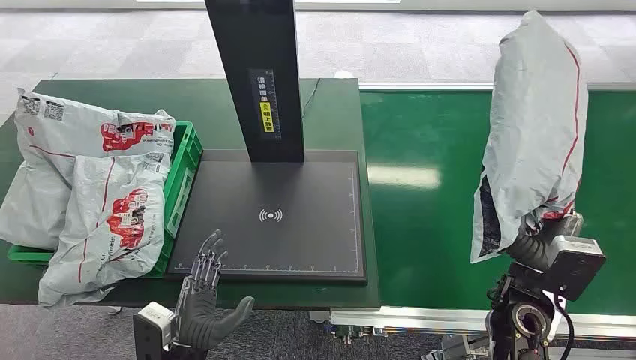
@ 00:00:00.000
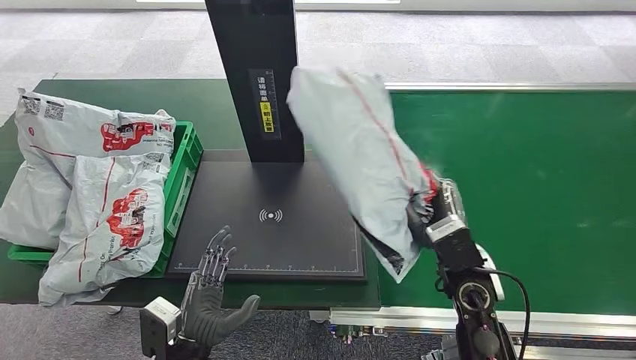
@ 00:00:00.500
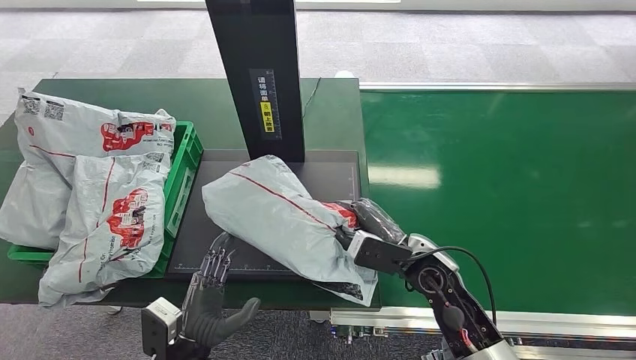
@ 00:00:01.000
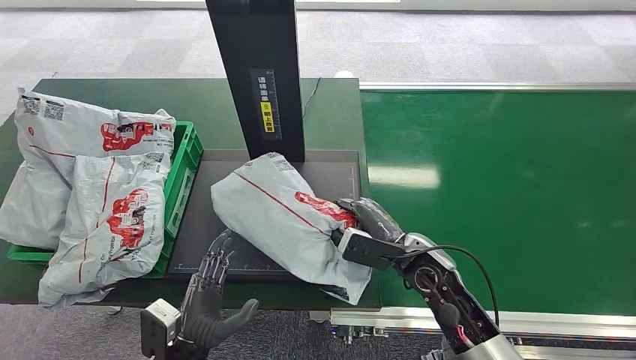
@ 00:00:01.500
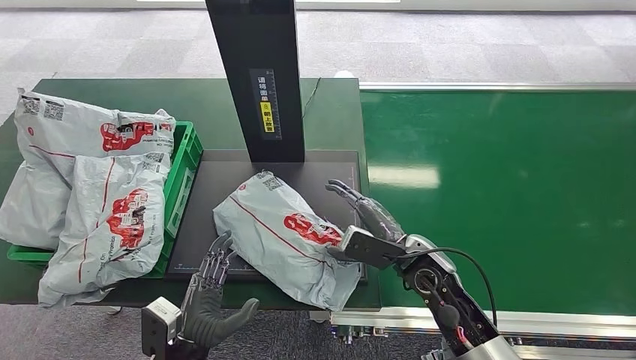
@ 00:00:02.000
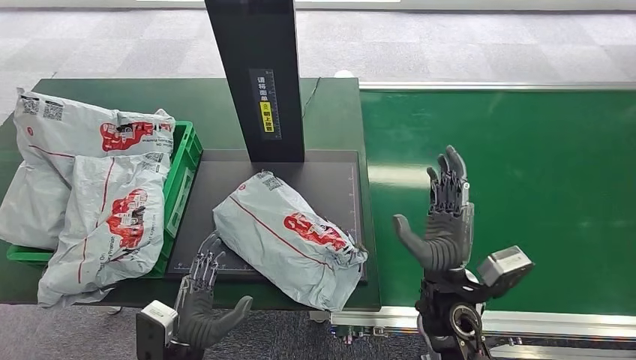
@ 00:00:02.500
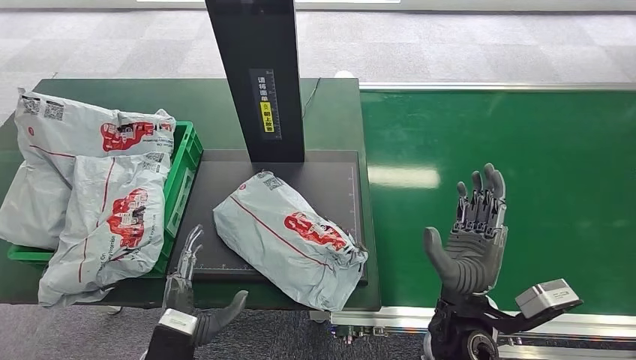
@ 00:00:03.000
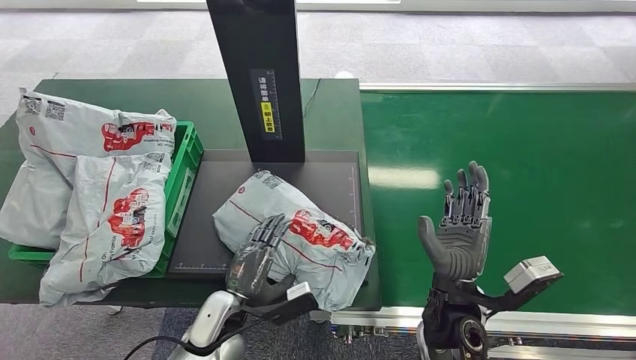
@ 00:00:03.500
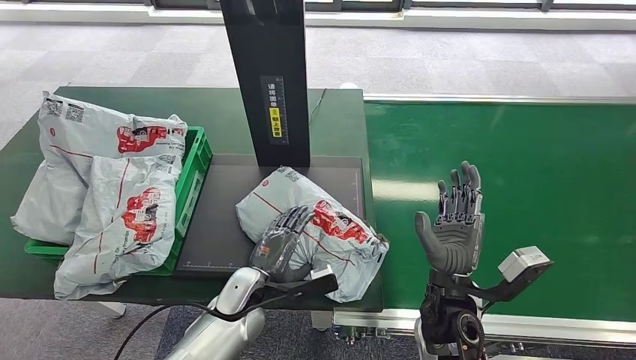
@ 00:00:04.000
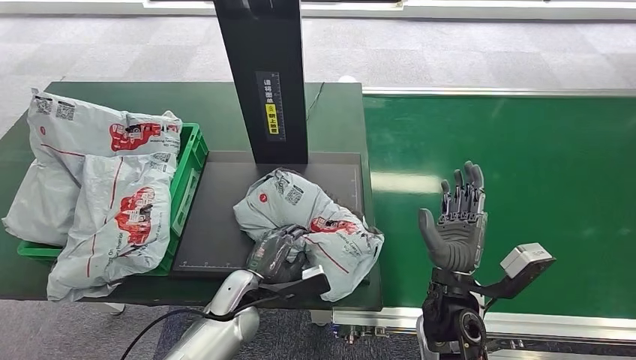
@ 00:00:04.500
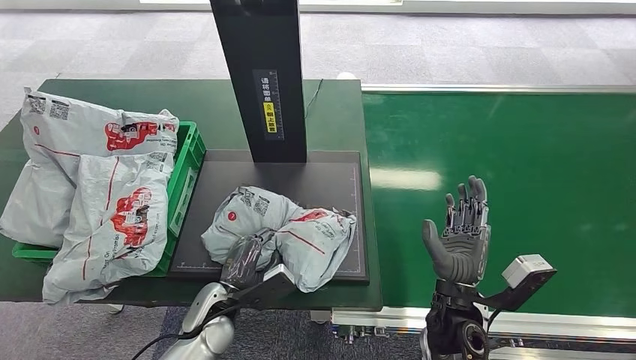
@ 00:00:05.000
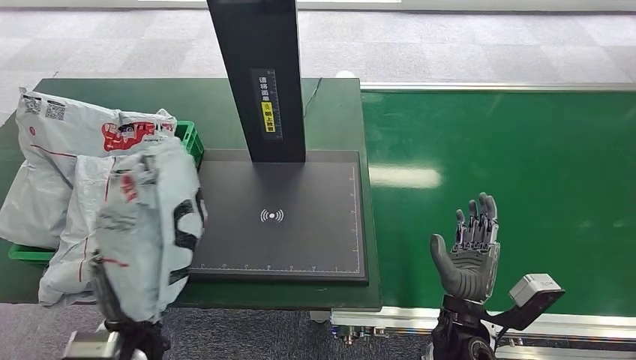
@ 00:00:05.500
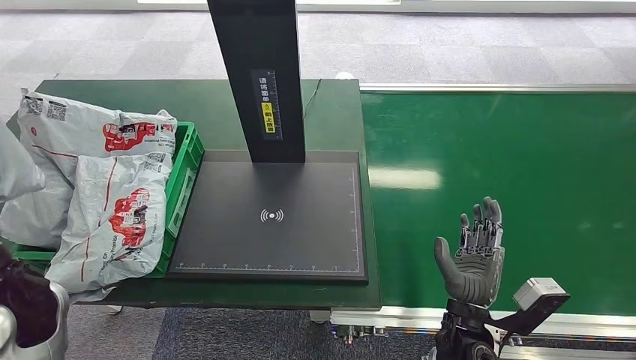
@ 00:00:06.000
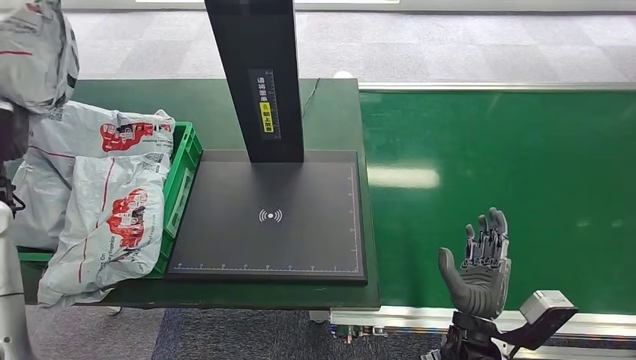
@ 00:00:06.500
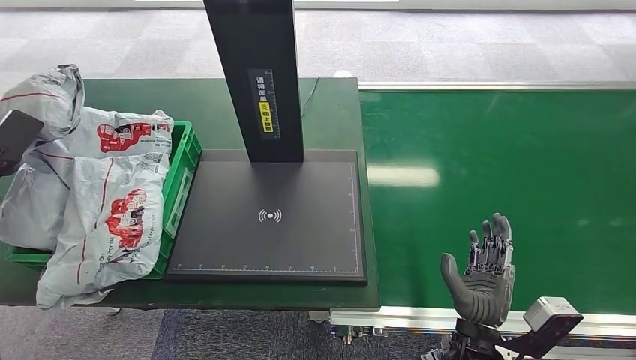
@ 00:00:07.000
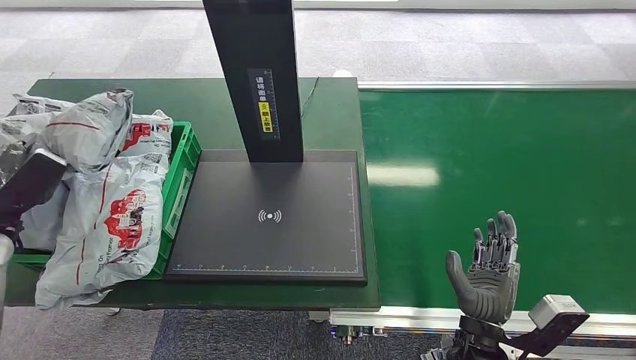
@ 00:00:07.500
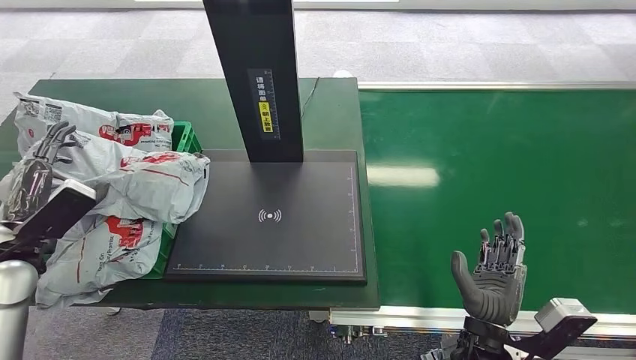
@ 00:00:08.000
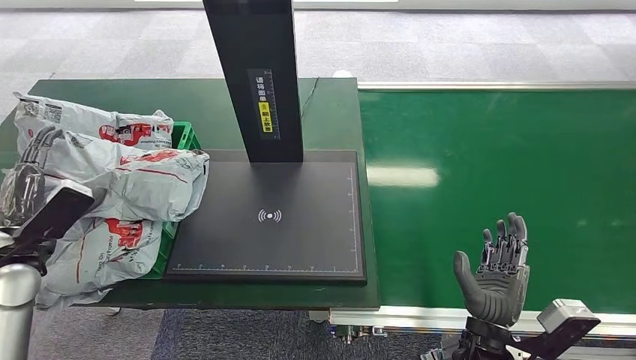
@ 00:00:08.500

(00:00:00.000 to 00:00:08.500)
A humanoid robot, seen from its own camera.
00:00:06.500 - 00:00:08.500: The left hand moves downward and backward, roughly 10 cm, and travels to the left and back again, roughly 10 cm each way.

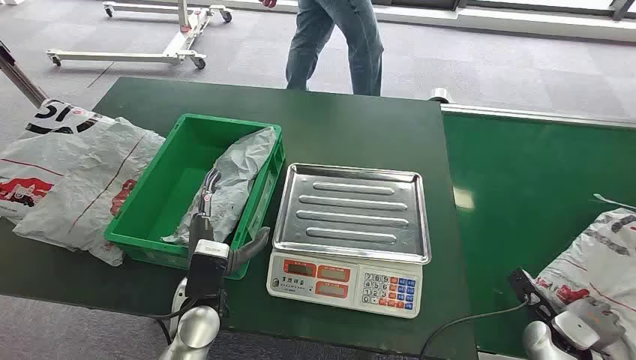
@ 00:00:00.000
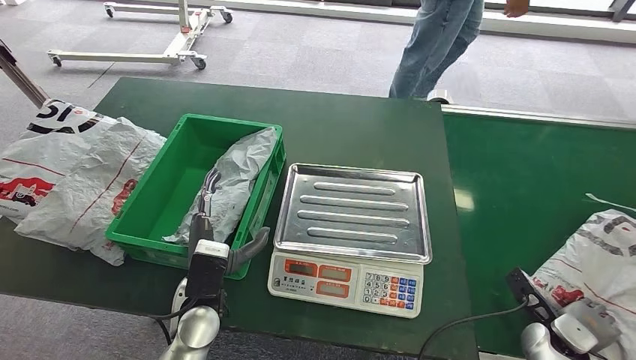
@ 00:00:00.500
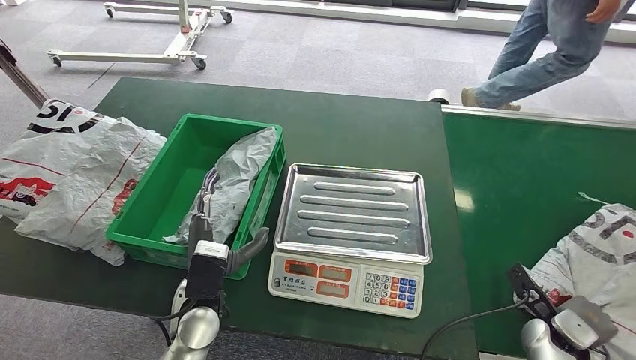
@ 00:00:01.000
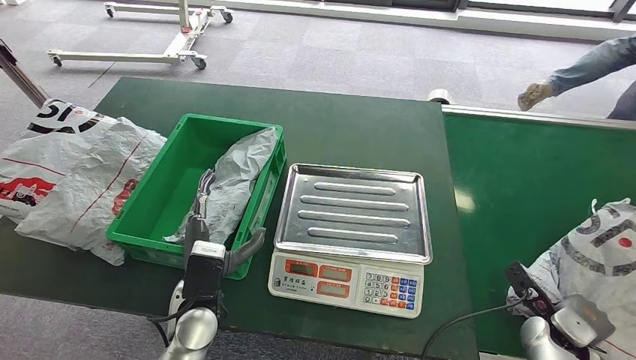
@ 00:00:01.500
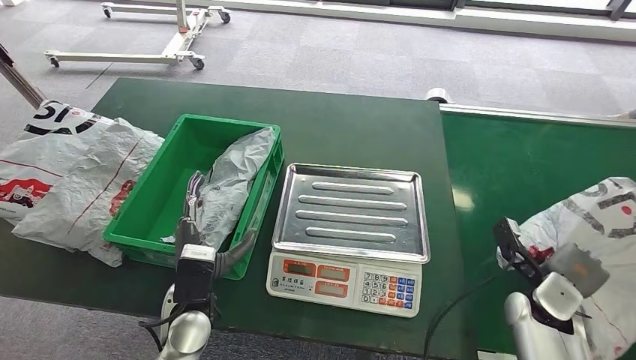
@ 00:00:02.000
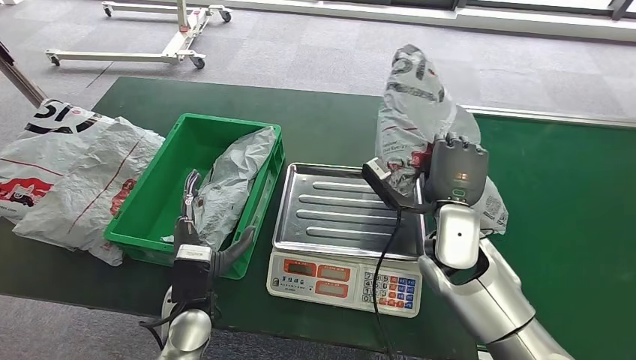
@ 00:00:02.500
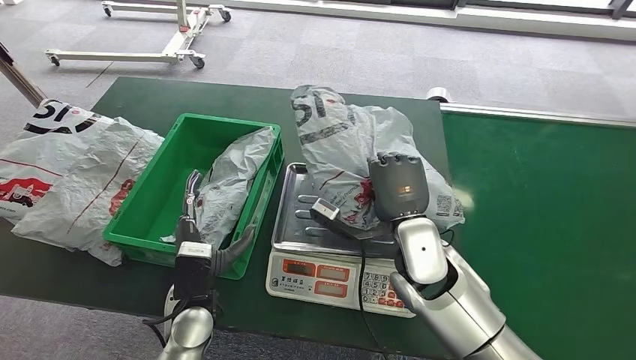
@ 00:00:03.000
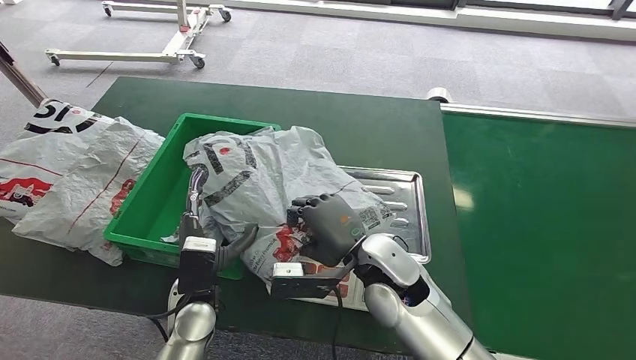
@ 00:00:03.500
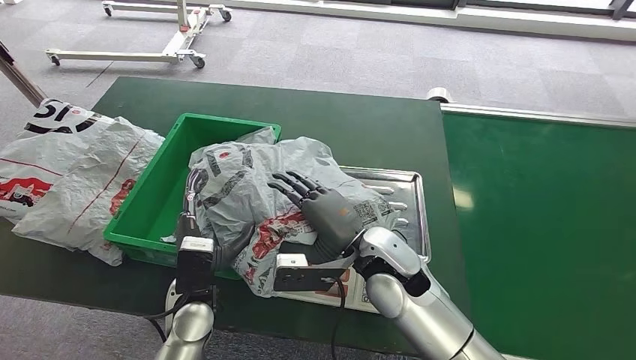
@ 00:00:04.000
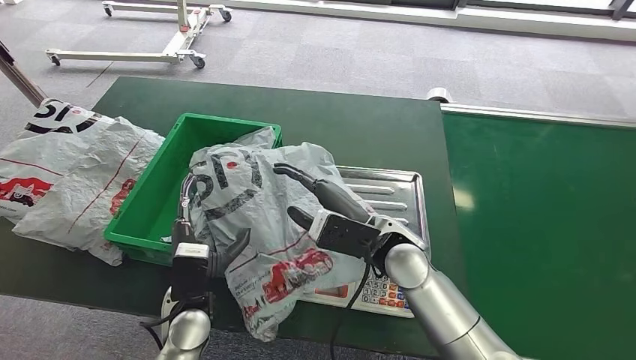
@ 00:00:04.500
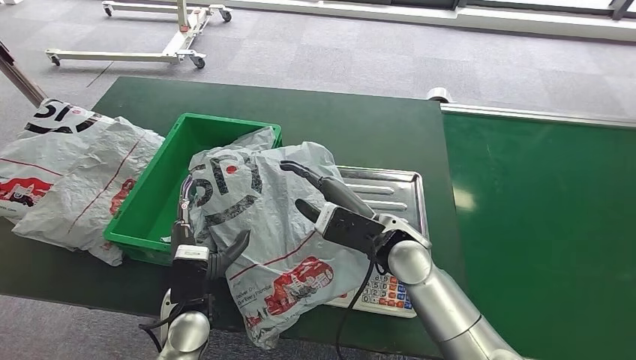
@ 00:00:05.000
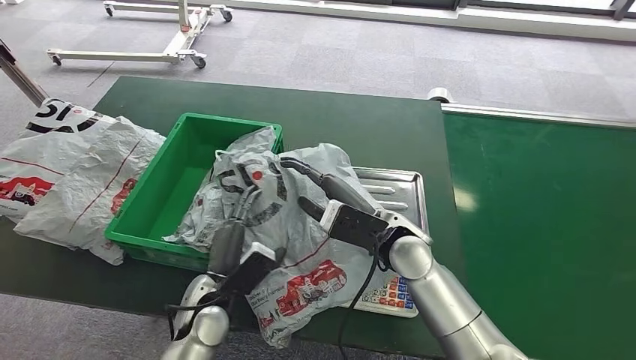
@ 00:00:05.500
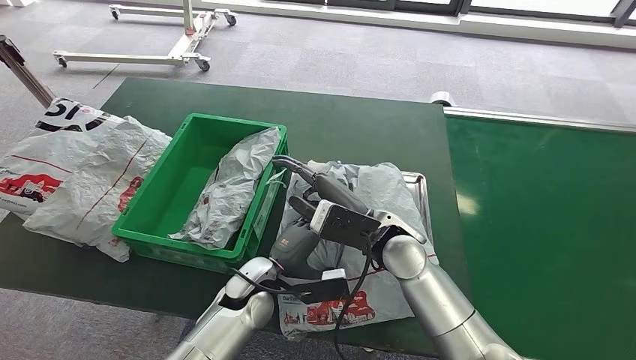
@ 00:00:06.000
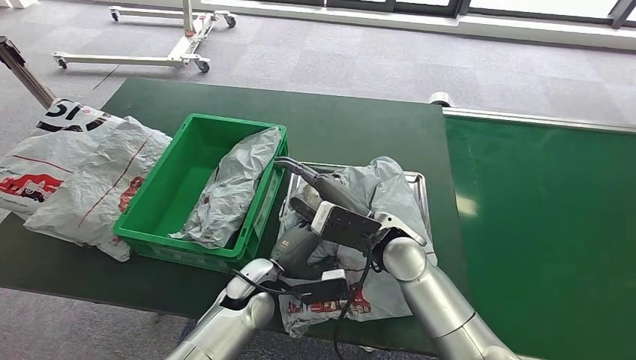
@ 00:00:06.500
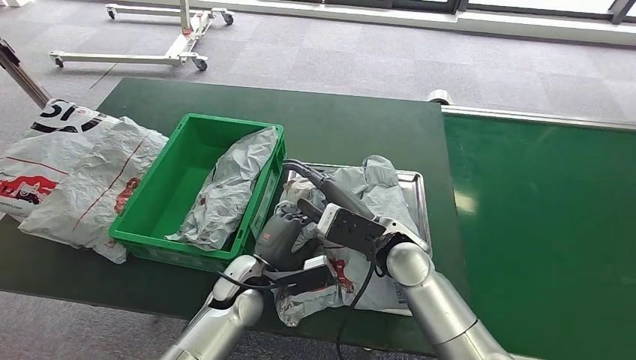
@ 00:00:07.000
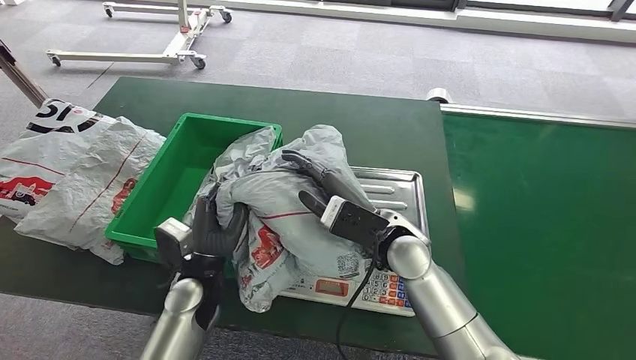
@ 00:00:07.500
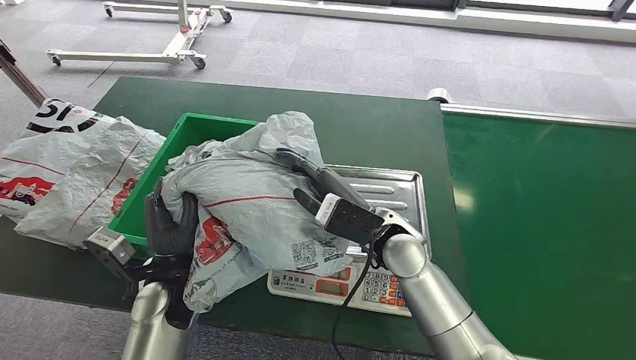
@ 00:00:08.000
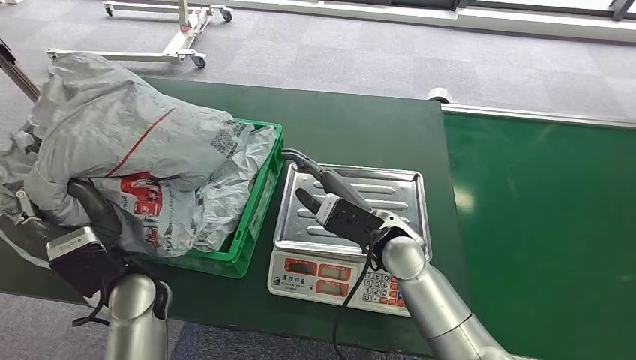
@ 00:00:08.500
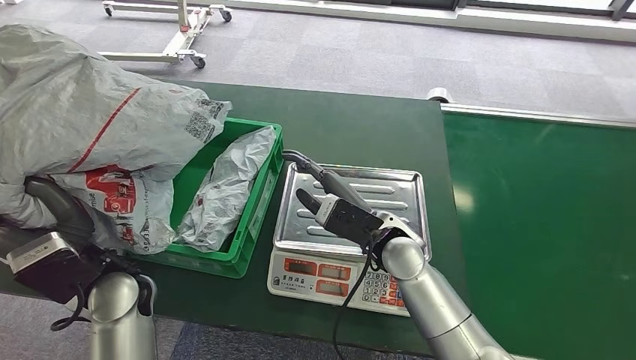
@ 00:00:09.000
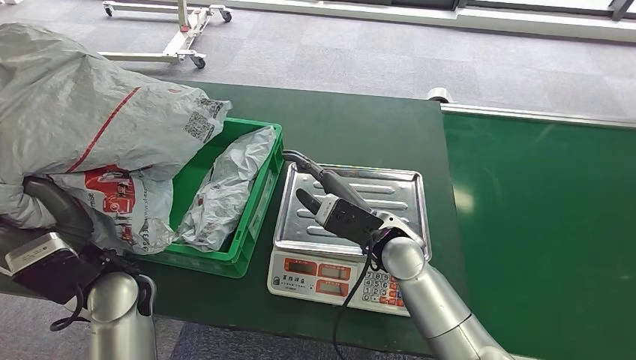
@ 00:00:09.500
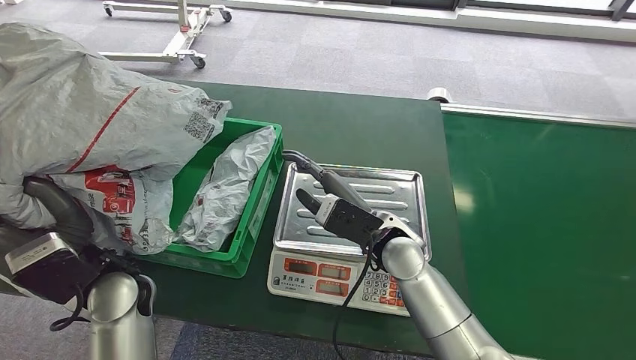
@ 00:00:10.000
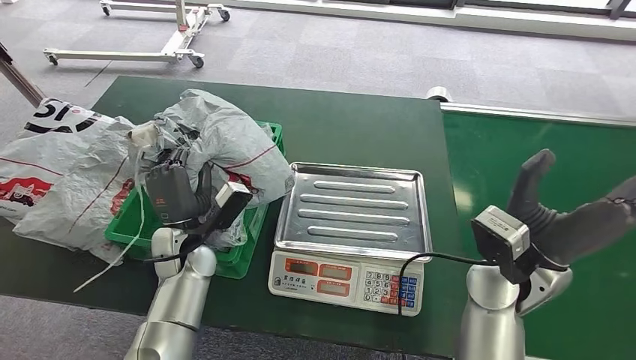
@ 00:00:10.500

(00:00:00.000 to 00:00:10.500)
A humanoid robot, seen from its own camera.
Step, 00:00:00.000 - 00:00:02.000: Pick up the package from the conveyor belt.
Step, 00:00:02.500 - 00:00:04.000: Place the package onto the inbound machine.
Step, 00:00:04.500 - 00:00:07.500: Pick up the package from the inbound machine.

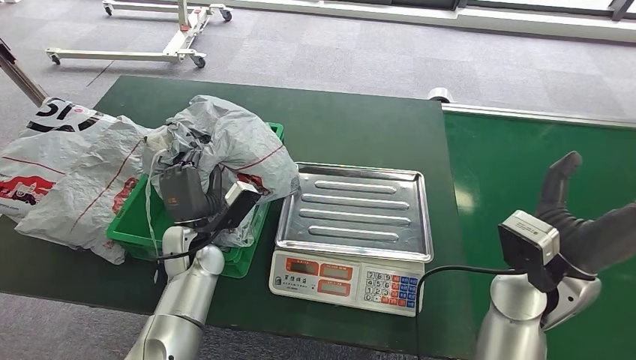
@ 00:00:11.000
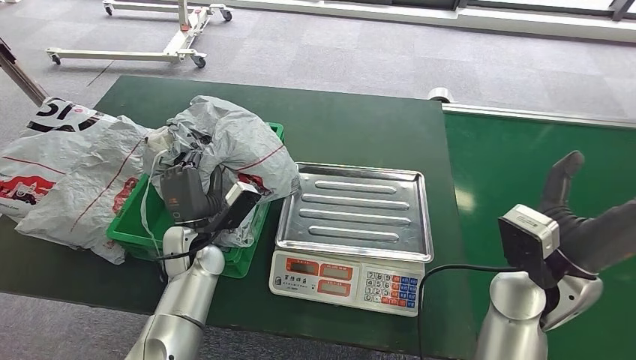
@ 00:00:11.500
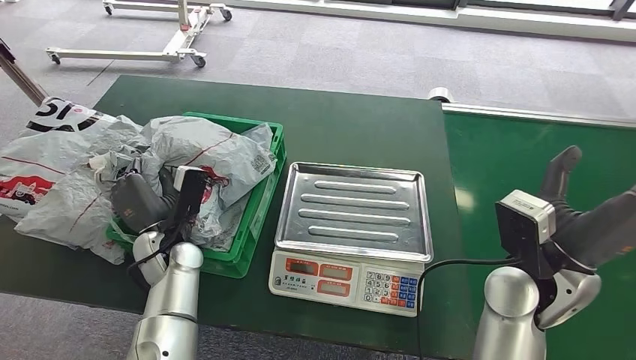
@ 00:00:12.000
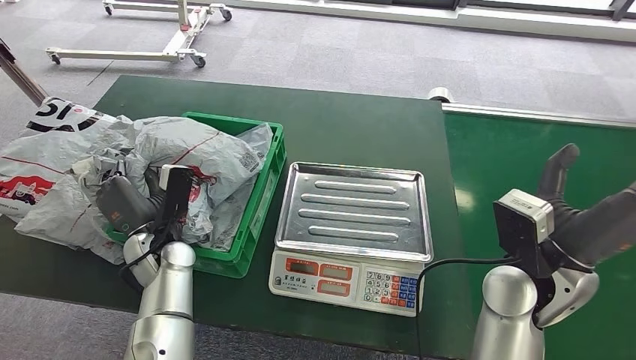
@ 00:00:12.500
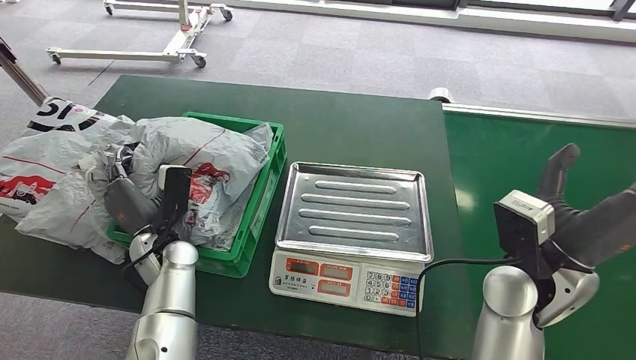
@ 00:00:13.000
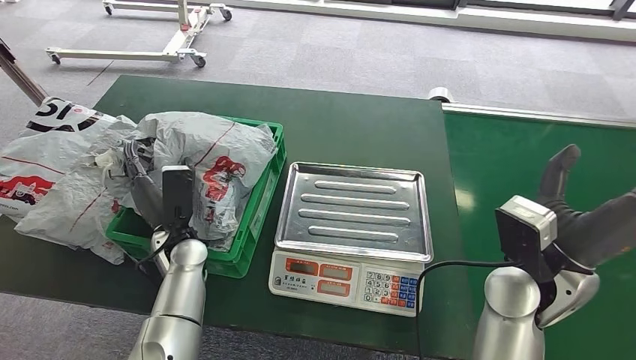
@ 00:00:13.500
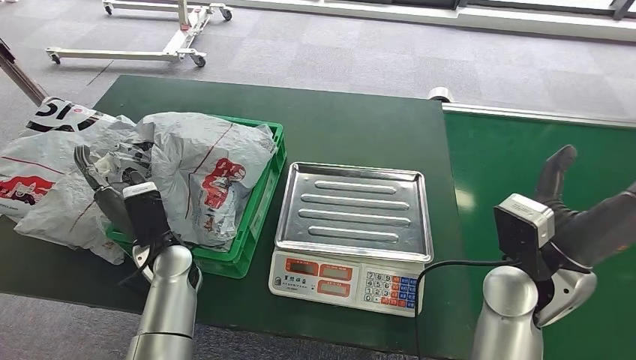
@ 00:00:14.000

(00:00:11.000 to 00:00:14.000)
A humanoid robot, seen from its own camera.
Step, 00:00:11.000 - 00:00:14.000: Place the package into the parcel locker.
00:00:11.000 - 00:00:12.500: The left hand moves some 5 cm.
